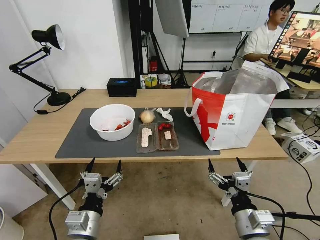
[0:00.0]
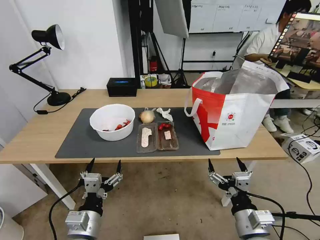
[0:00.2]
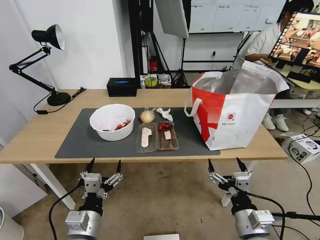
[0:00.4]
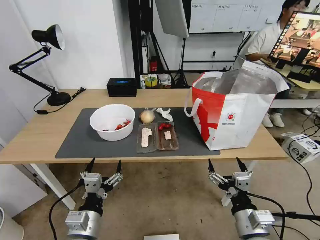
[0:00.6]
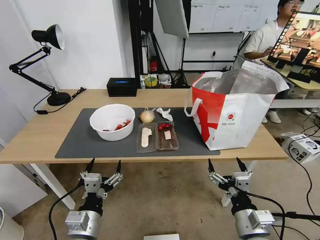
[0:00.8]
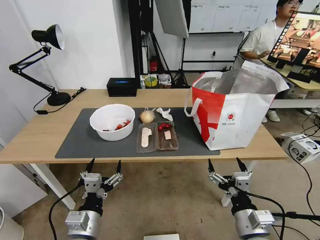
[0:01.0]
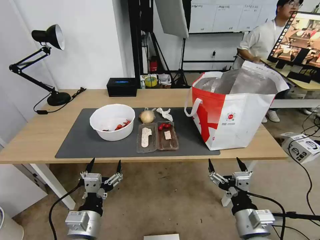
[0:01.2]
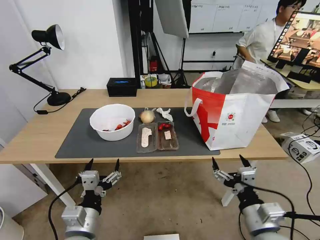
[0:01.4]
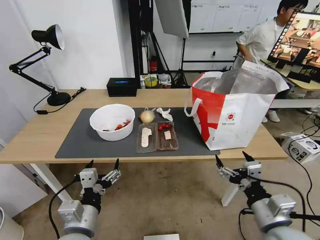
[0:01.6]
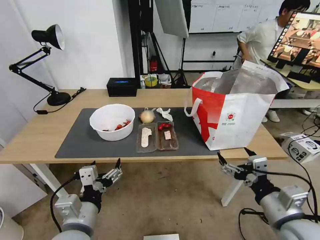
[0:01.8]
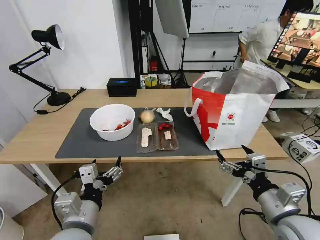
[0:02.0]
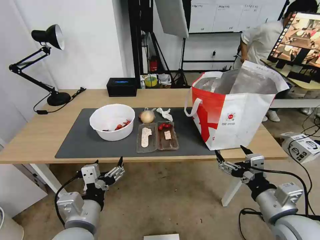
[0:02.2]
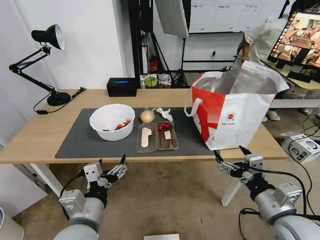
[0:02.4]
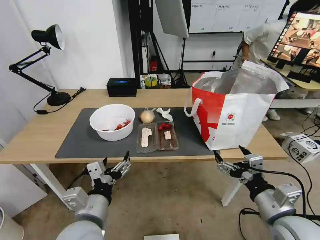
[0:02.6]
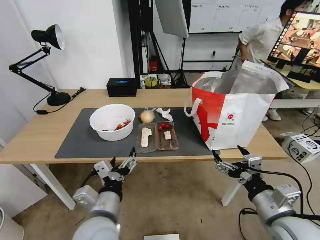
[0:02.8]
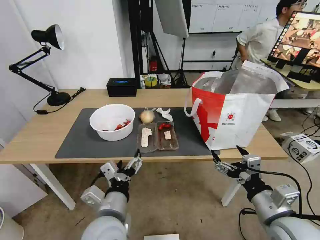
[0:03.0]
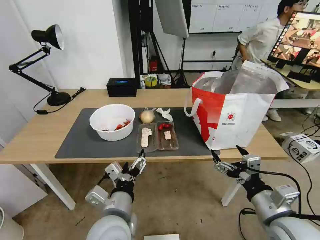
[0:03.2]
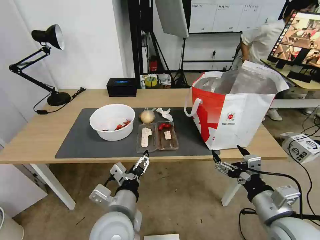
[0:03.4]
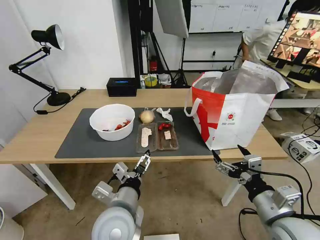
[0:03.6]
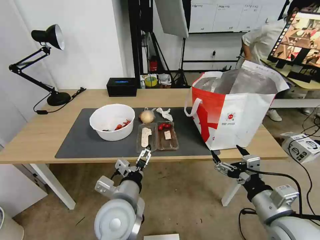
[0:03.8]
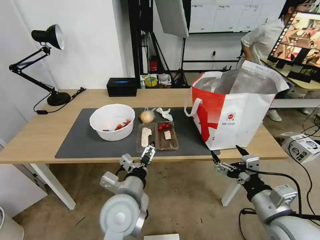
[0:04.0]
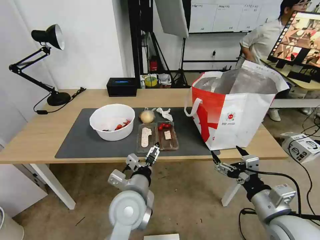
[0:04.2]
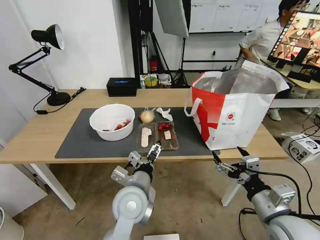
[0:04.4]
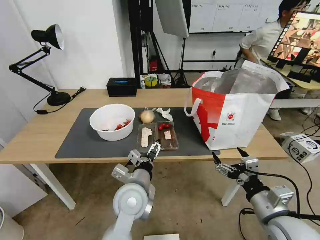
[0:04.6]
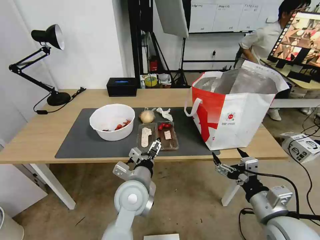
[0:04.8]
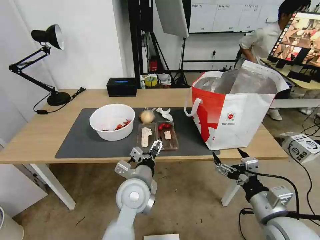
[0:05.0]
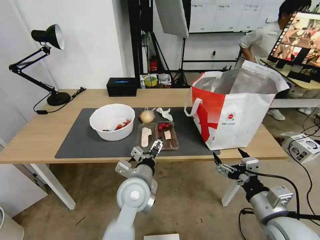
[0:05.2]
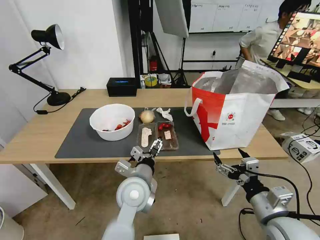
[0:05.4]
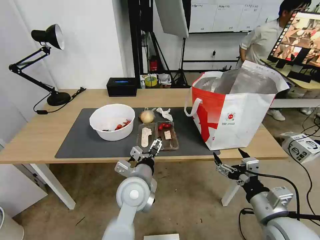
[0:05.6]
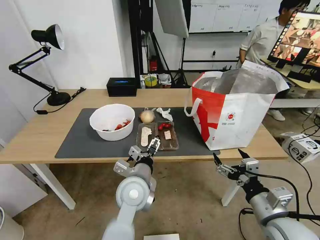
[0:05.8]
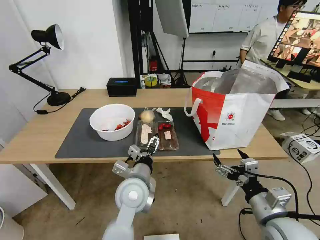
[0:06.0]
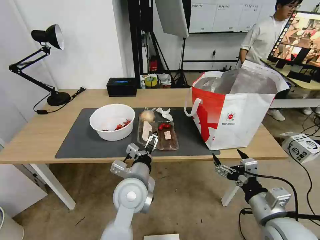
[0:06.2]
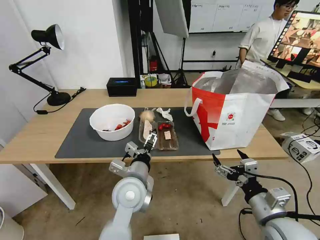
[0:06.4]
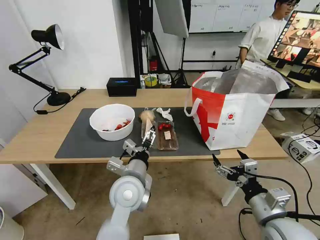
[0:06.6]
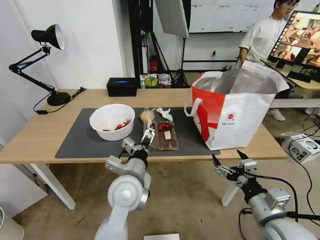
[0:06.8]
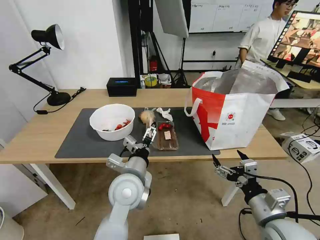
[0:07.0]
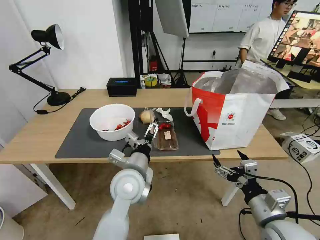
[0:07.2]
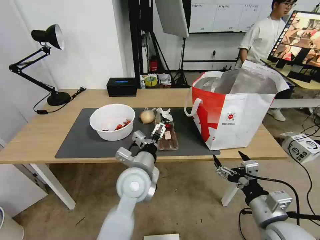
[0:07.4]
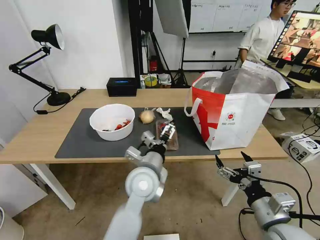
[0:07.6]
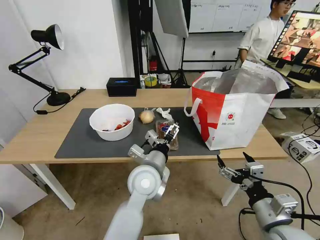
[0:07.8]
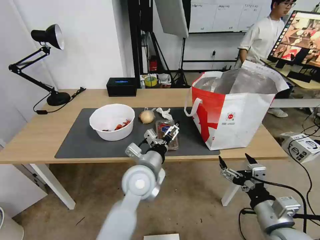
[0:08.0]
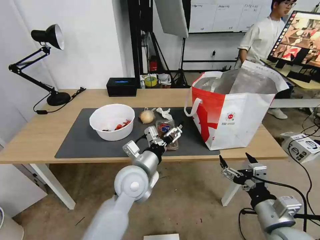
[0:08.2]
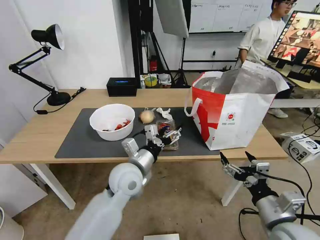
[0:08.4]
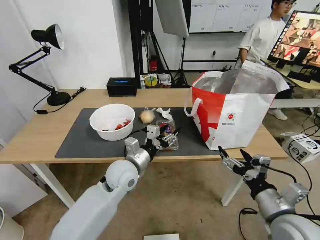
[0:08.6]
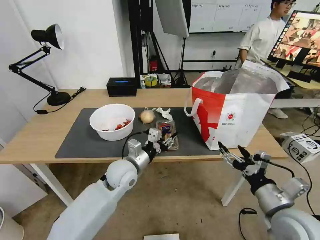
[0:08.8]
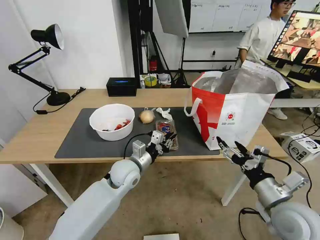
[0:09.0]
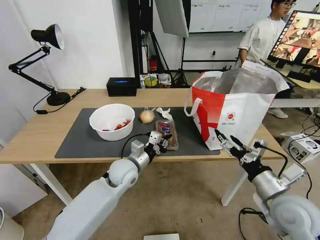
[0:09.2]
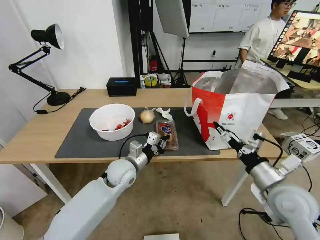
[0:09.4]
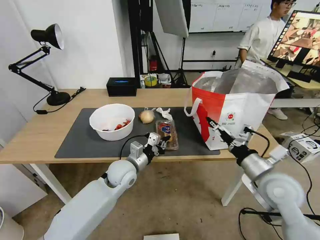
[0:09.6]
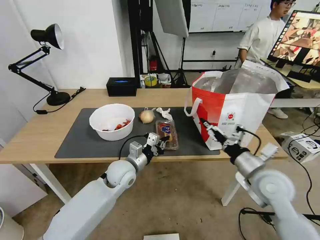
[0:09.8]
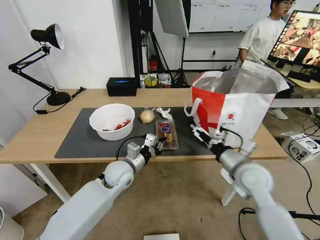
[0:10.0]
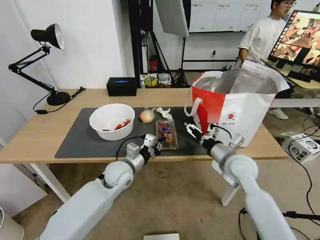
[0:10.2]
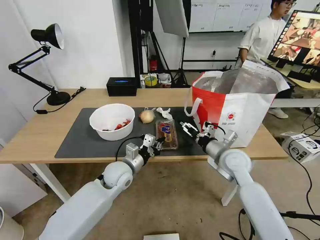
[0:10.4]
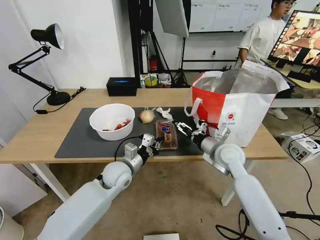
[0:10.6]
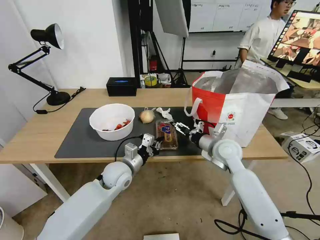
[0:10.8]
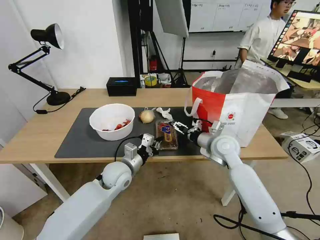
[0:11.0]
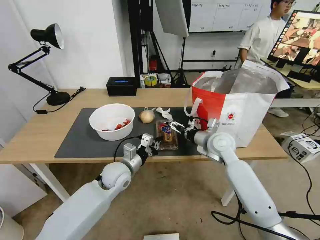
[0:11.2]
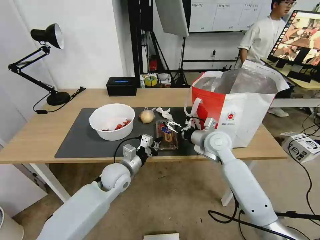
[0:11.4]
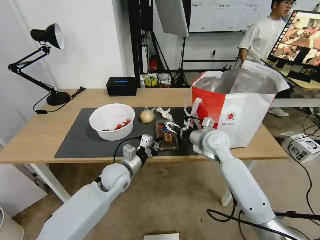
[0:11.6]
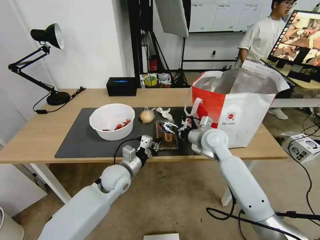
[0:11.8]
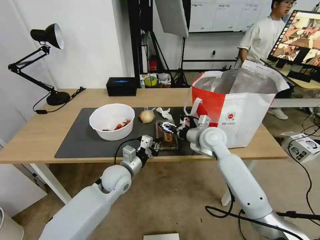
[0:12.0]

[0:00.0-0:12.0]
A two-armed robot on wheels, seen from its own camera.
Task of the whole recording: Pick up the trash from the table and place it into the takeout bag.
0:01.6 to 0:03.0: The left gripper moves to the right, roughly 5 cm.
0:03.0 to 0:04.4: The left gripper is displaced forward and to the right by some 10 cm.
0:04.4 to 0:07.6: The grippers stay close to where they were, moving slightly.
0:07.6 to 0:09.0: The right gripper ends up some 5 cm from where it was; the left gripper goes roughly 10 cm to the left, forward and downward, and closes its fingers.
0:09.0 to 0:10.4: The right gripper is displaced forward and to the left by approximately 20 cm.
0:10.4 to 0:12.0: The right gripper heads forward and to the left, covering some 10 cm.

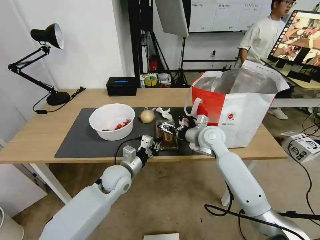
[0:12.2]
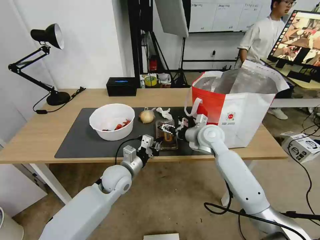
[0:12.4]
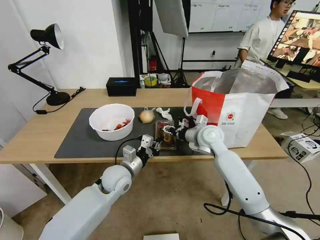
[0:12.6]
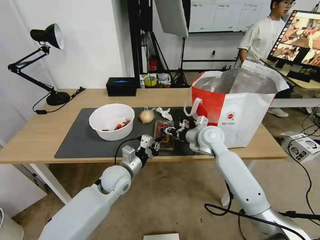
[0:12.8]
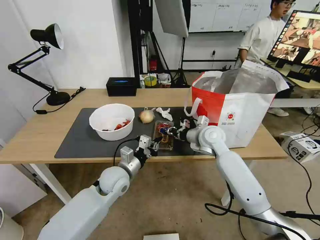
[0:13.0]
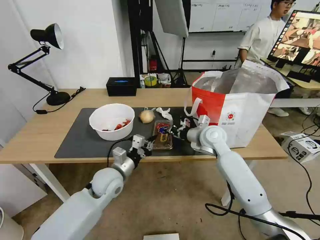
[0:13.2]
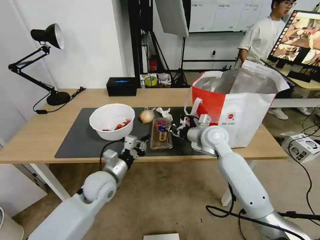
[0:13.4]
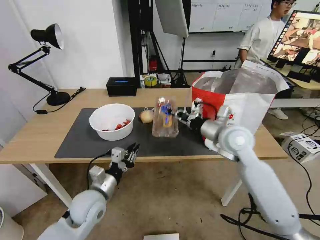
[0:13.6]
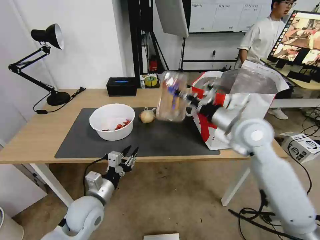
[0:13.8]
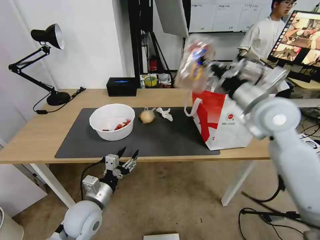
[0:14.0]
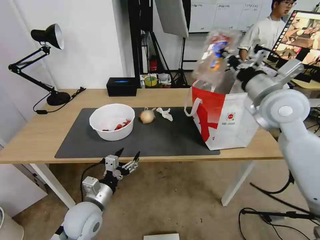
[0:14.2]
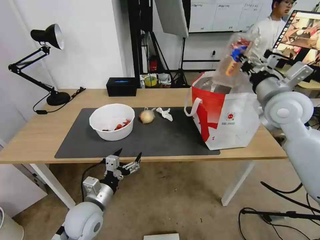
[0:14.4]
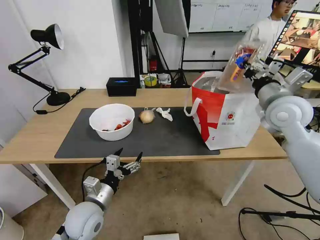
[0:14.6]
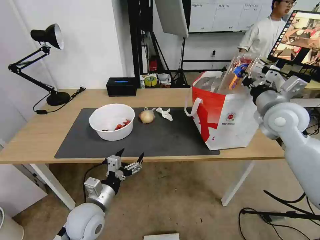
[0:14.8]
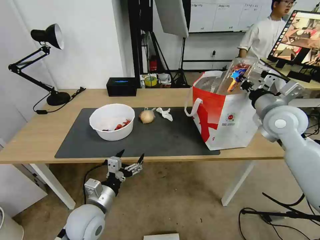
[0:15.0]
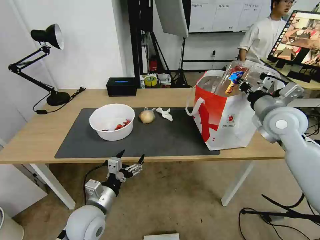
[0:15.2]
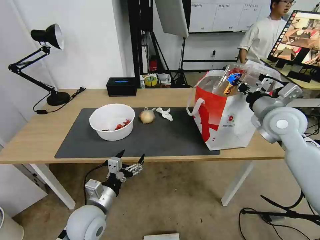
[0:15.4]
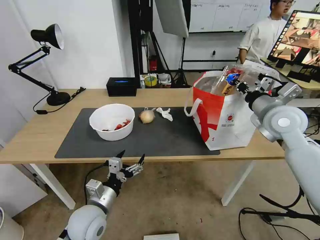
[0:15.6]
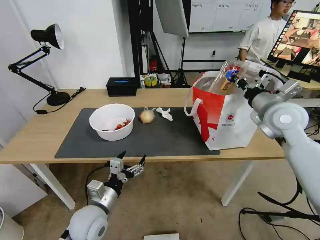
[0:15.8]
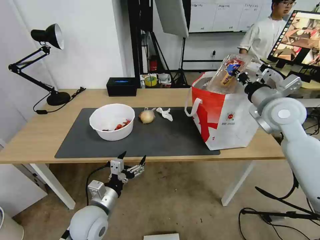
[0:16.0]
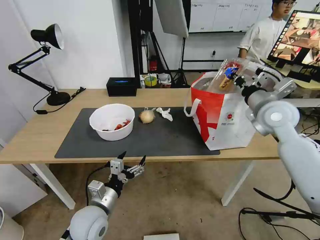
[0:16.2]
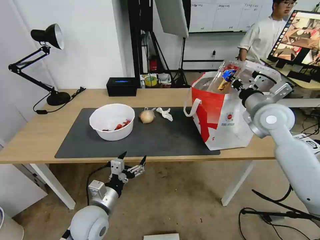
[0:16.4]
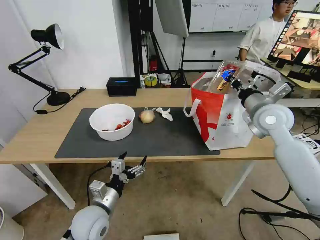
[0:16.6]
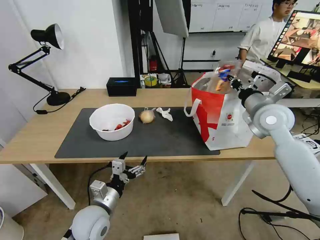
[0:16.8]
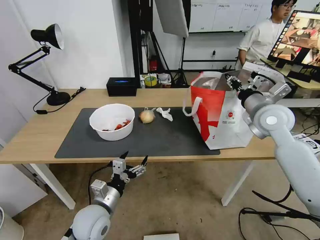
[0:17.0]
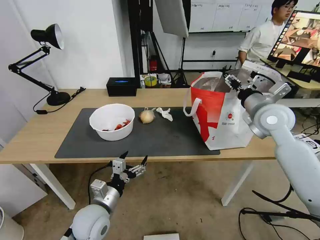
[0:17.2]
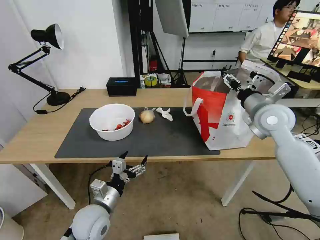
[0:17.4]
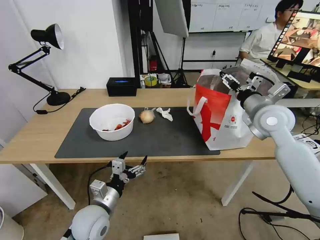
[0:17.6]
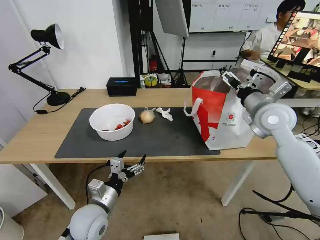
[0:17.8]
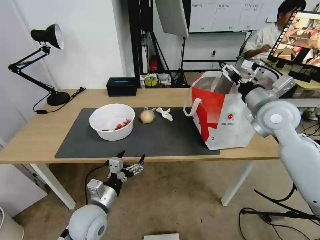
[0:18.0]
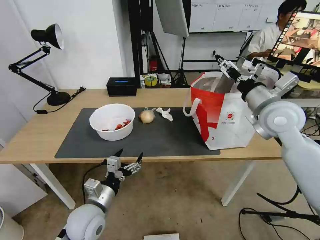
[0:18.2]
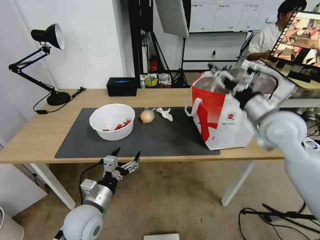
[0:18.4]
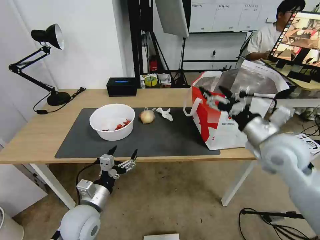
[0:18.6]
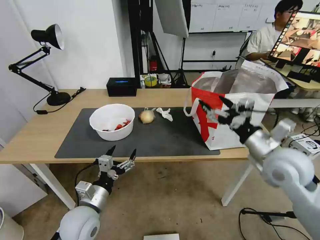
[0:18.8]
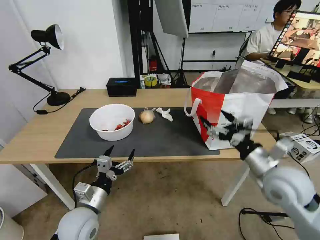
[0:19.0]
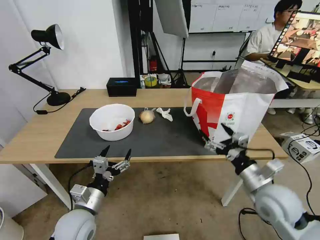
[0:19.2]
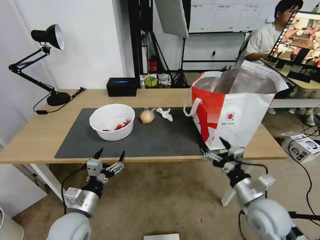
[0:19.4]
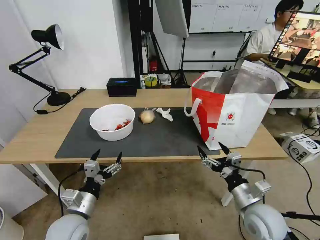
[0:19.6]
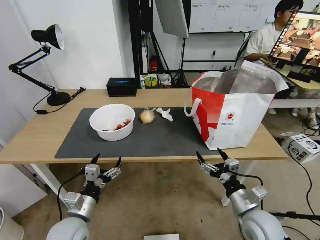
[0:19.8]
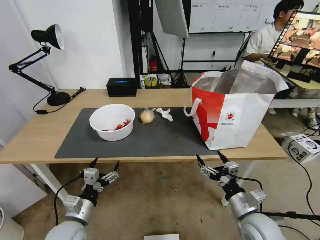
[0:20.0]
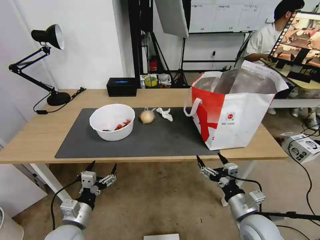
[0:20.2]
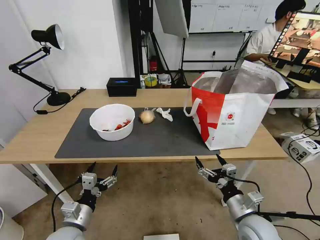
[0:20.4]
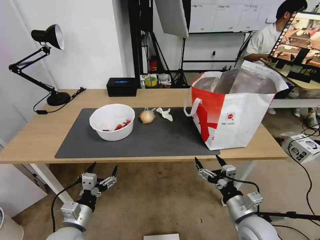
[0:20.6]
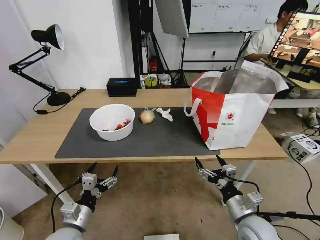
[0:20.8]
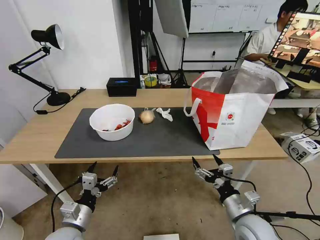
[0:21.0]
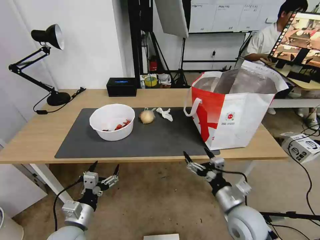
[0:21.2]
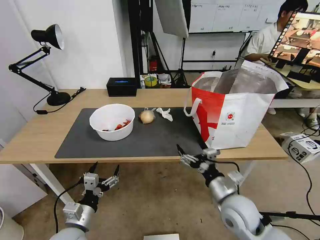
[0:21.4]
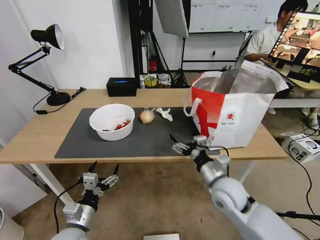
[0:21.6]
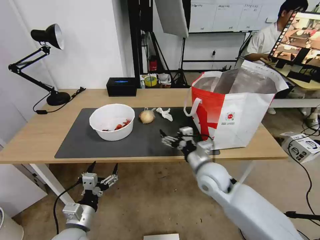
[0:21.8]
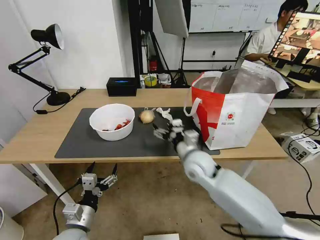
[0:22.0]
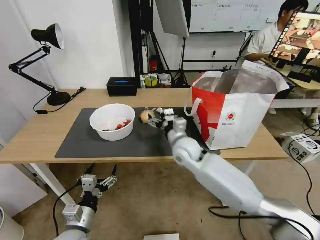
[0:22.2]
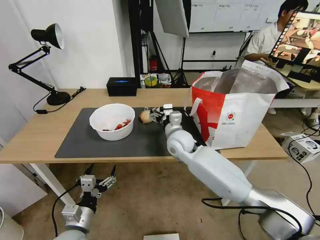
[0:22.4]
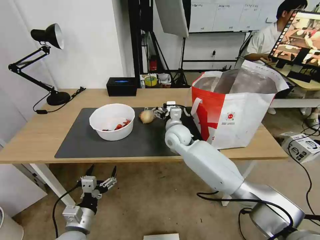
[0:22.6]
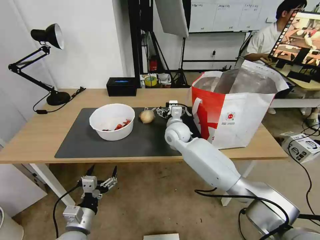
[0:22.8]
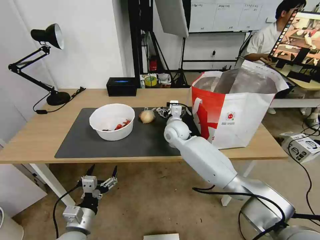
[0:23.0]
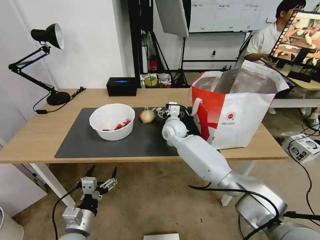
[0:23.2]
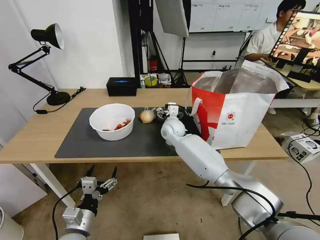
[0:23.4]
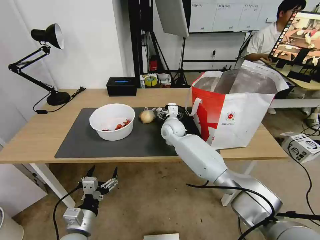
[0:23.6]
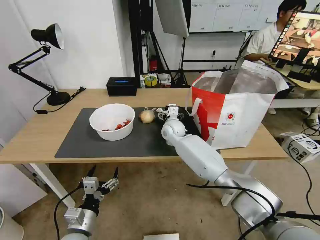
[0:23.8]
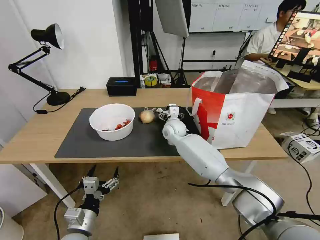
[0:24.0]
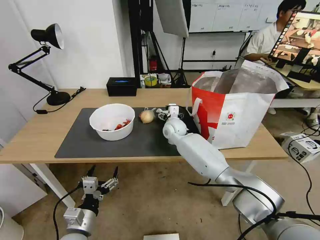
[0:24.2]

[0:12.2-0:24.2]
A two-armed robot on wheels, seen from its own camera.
Task of the whole recording: Pick up the trash from the table and place it into the takeout bag.
0:12.2 to 0:13.8: The right gripper heads upward, backward and to the right, covering about 15 cm, and closes its fingers. The left gripper travels backward and to the left by approximately 15 cm, and opens its fingers.
0:13.8 to 0:15.2: The right gripper heads to the right, covering about 10 cm. The left gripper opens up.
0:15.2 to 0:16.6: There are only small adjustments of the grippers.
0:16.6 to 0:18.2: The right gripper opens its fingers.
0:18.2 to 0:19.8: The left gripper shifts by approximately 5 cm, while the right gripper travels downward and backward by roughly 30 cm.
0:19.8 to 0:21.2: There are only small adjustments of the grippers.
0:21.2 to 0:22.6: The right gripper travels forward and to the left by about 30 cm.
0:22.6 to 0:24.2: The right gripper moves forward, some 5 cm.
